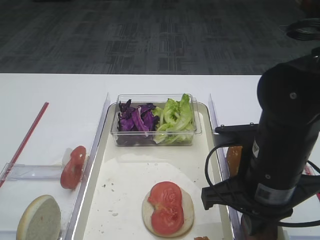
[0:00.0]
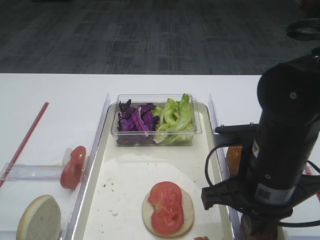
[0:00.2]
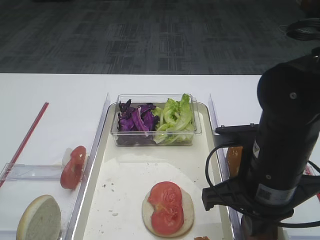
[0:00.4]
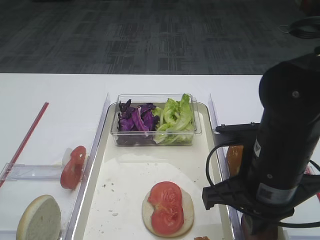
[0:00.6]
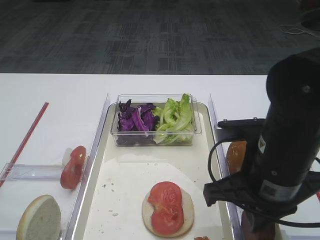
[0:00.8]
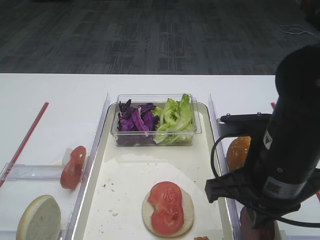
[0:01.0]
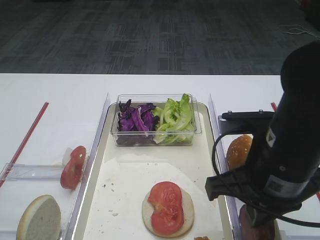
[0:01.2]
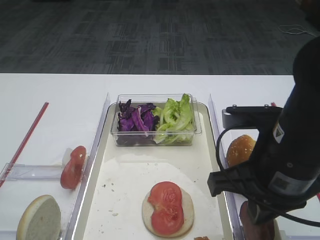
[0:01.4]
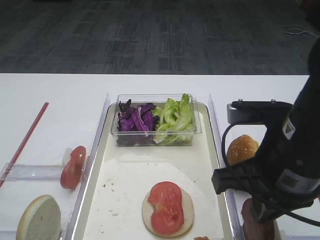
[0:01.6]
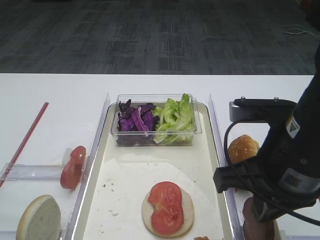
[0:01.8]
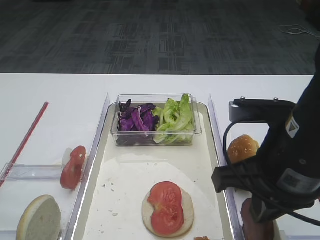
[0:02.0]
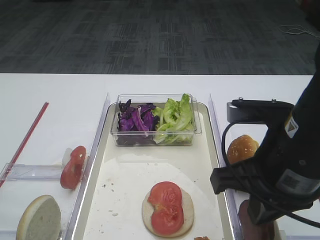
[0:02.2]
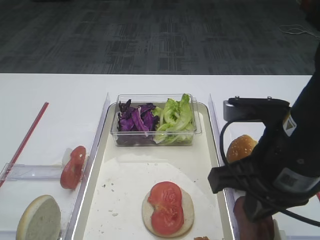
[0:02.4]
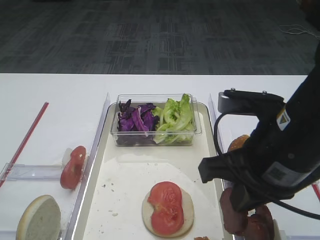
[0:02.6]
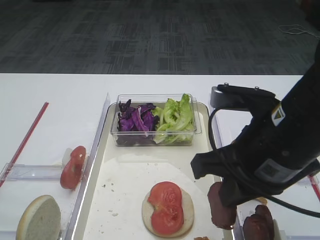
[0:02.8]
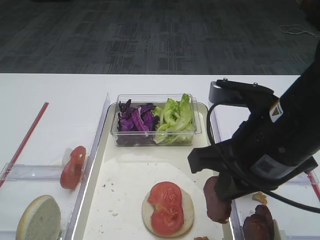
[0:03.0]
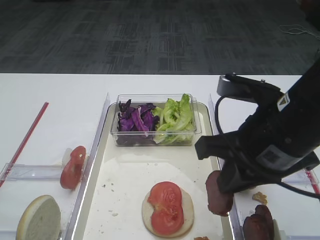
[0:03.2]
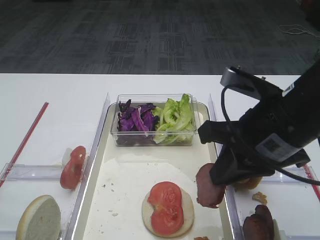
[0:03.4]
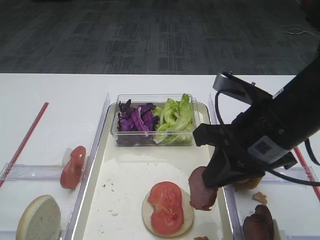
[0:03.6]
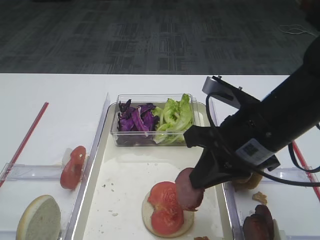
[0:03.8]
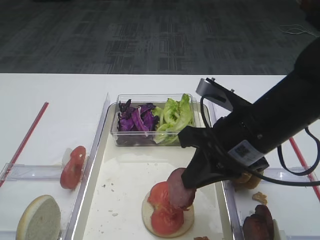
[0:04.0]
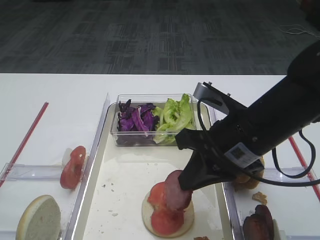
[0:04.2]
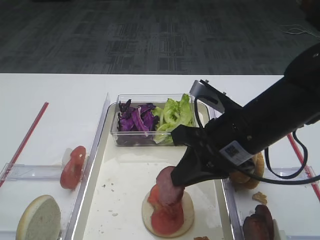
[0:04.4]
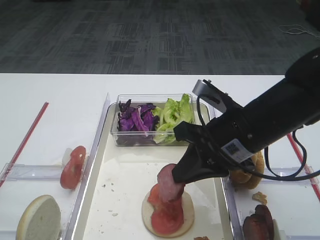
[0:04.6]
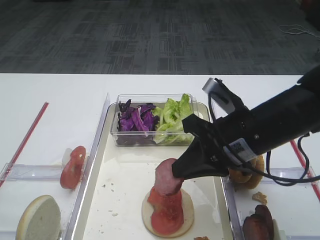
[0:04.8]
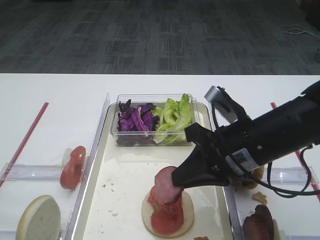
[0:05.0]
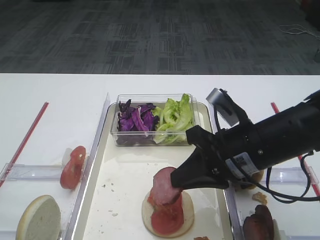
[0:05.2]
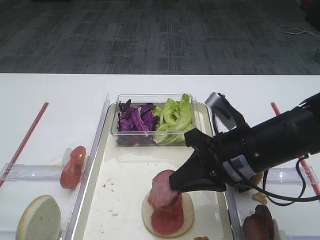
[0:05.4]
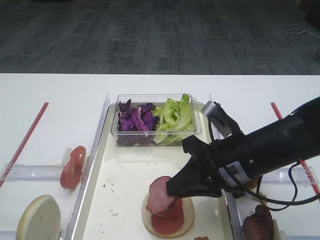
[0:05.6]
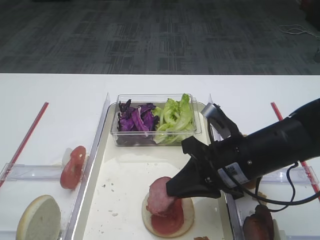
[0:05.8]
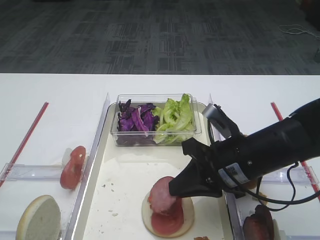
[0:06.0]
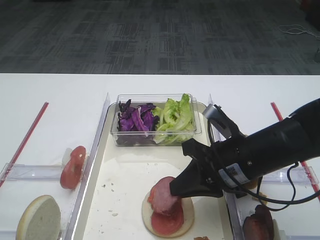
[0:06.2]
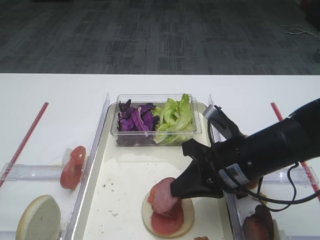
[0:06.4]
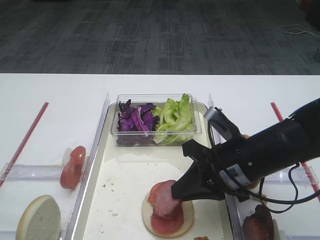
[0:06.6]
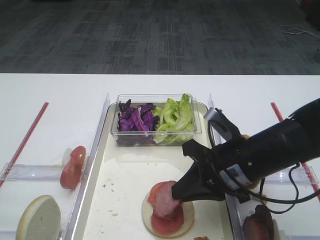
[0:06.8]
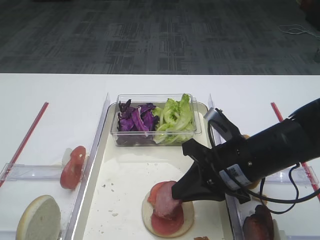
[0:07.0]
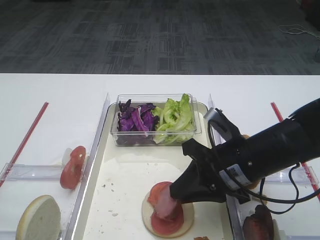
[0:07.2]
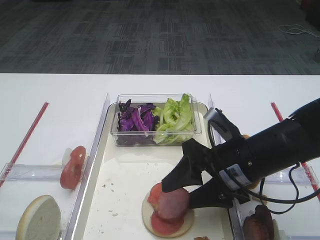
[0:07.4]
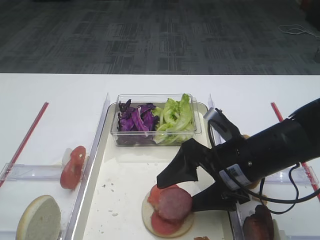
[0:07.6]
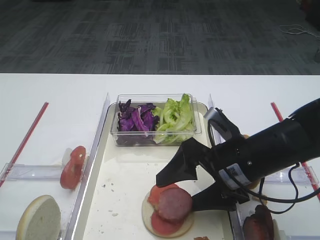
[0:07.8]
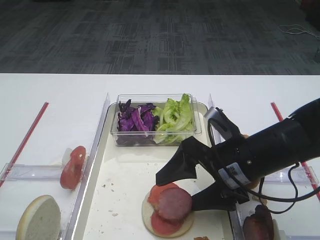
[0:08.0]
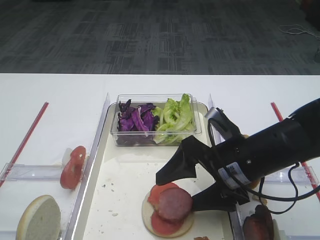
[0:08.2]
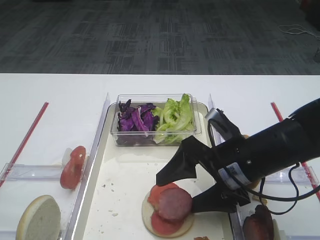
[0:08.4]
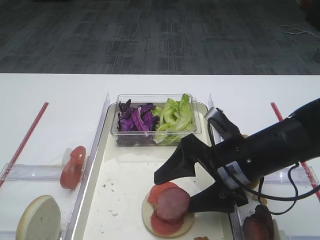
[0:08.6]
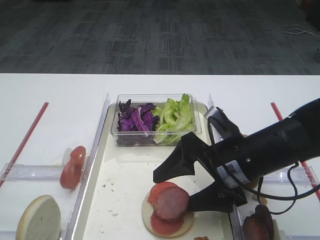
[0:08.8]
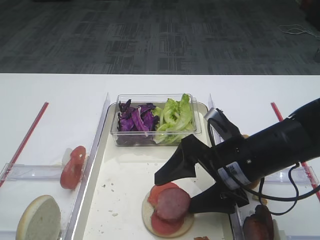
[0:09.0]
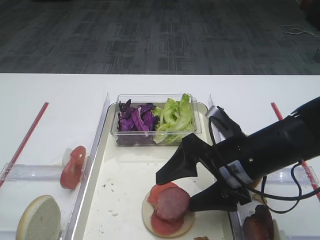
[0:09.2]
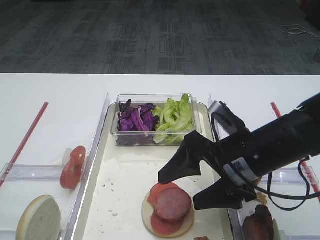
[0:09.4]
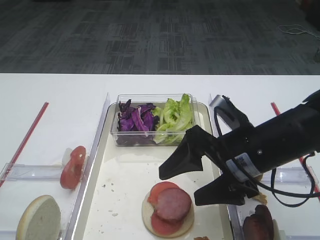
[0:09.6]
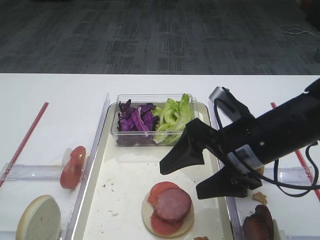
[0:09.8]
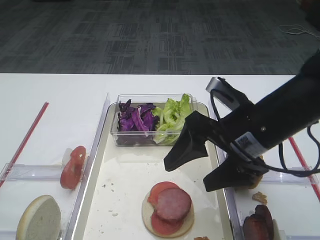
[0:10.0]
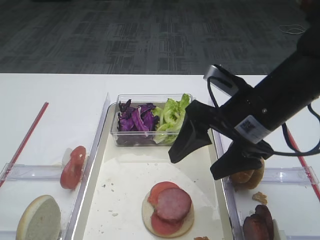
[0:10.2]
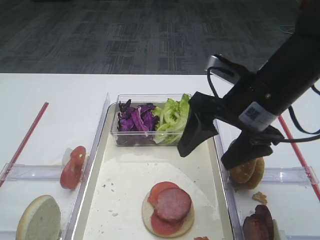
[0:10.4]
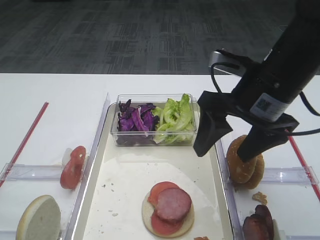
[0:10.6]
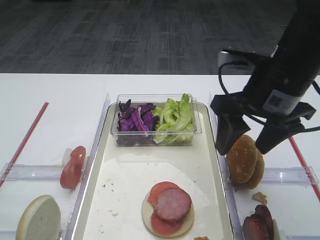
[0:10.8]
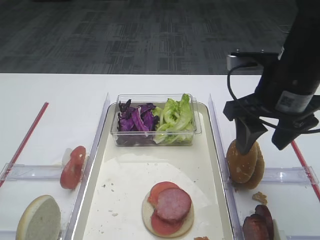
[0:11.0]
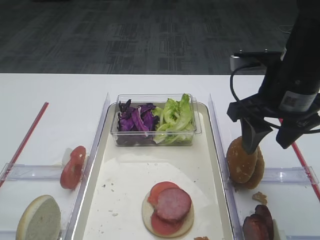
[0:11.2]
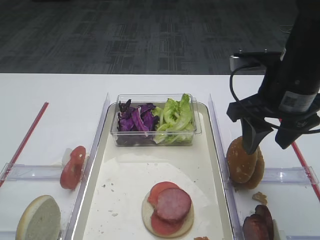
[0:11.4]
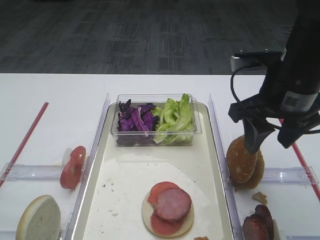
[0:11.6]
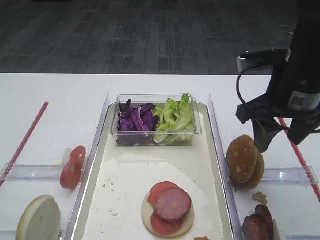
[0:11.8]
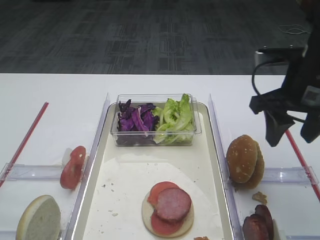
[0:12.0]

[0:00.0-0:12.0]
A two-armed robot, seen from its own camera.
Step, 0:00.0 to 0:02.0: Pick up the cutlet with the right gripper.
Step, 0:02.2 to 0:10.2: Place the cutlet on the tomato slice with the right gripper.
0:00.0 to 0:01.6: The right gripper changes place by about 5 cm.
0:01.6 to 0:03.0: There are only small adjustments of the grippers.
0:03.0 to 0:04.4: The right gripper is displaced forward by roughly 5 cm.
0:04.4 to 0:06.0: The right gripper heads downward, covering roughly 5 cm.
0:06.0 to 0:07.6: The right gripper opens its fingers.
0:07.6 to 0:09.0: The grippers stay close to where they were, moving slightly.
0:09.0 to 0:10.4: The right gripper heads upward, covering about 10 cm.
0:10.4 to 0:12.0: The right gripper shifts roughly 5 cm to the right.

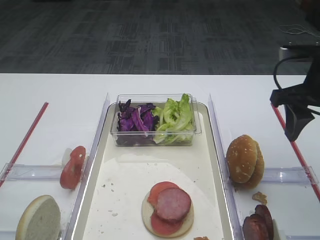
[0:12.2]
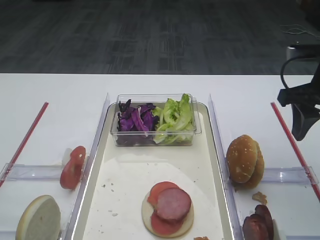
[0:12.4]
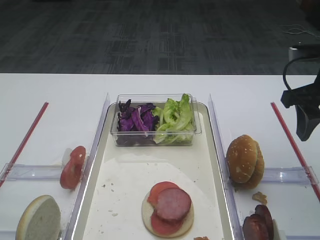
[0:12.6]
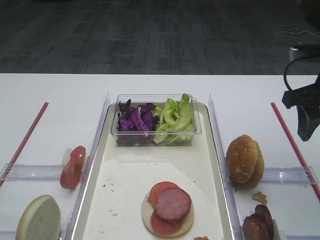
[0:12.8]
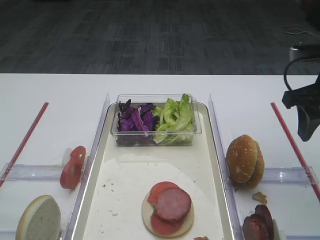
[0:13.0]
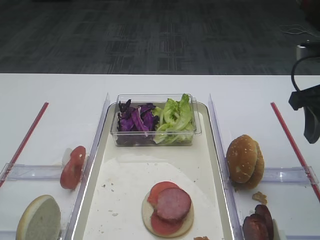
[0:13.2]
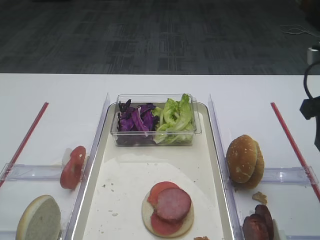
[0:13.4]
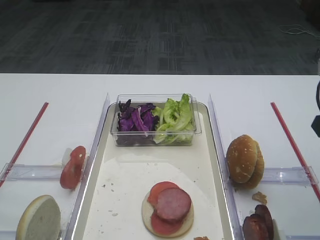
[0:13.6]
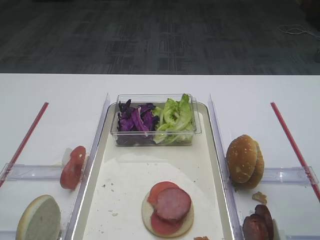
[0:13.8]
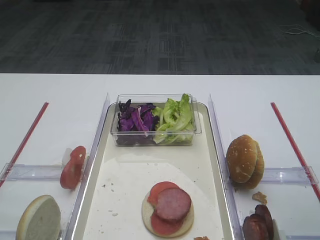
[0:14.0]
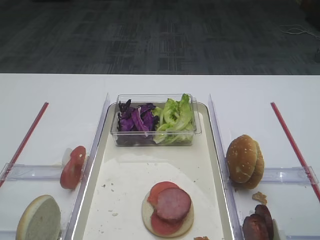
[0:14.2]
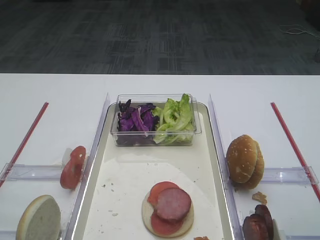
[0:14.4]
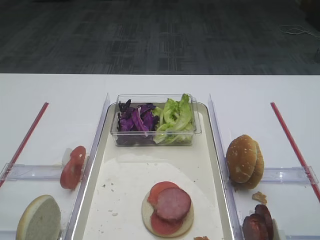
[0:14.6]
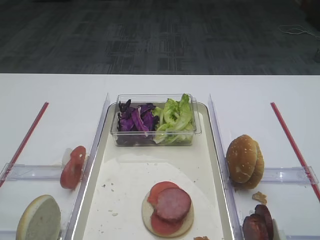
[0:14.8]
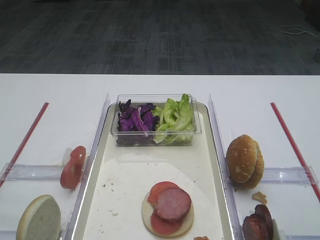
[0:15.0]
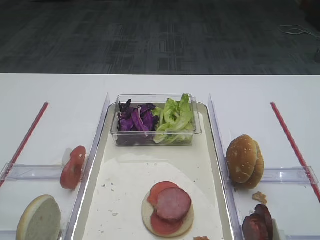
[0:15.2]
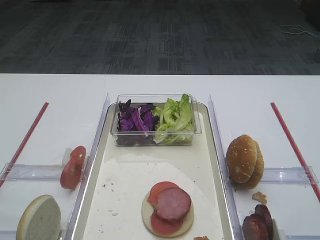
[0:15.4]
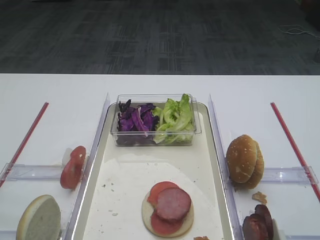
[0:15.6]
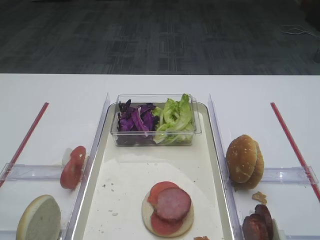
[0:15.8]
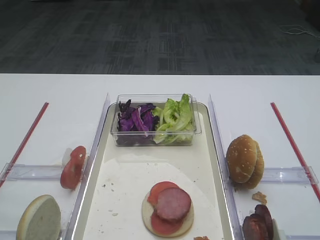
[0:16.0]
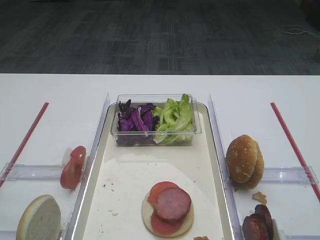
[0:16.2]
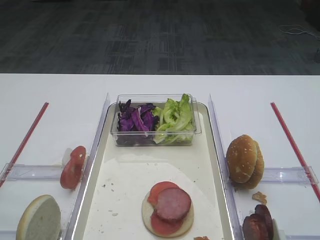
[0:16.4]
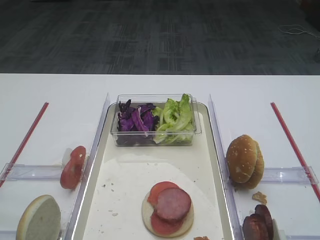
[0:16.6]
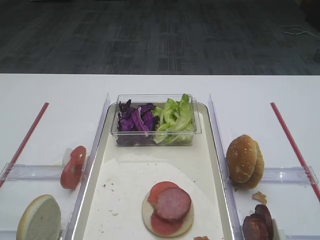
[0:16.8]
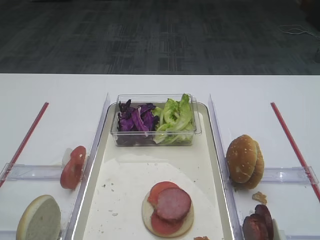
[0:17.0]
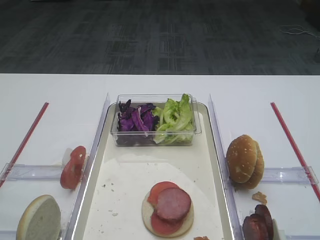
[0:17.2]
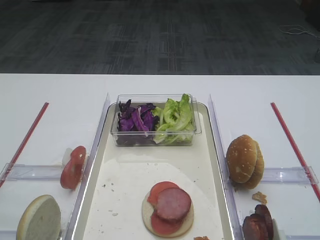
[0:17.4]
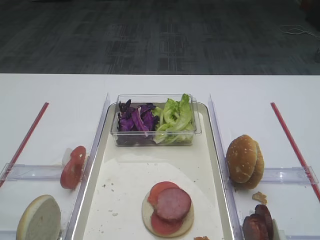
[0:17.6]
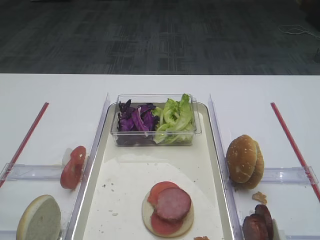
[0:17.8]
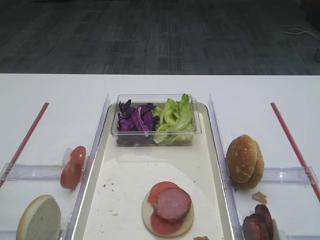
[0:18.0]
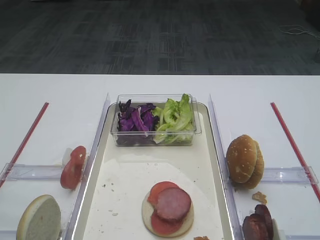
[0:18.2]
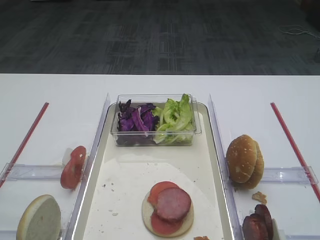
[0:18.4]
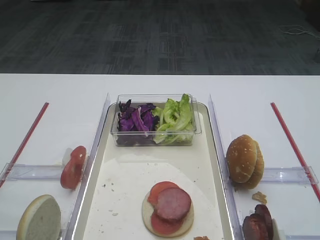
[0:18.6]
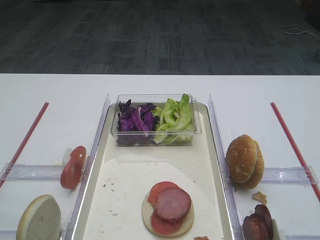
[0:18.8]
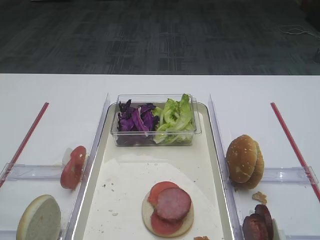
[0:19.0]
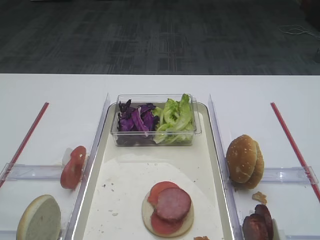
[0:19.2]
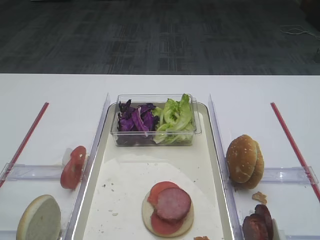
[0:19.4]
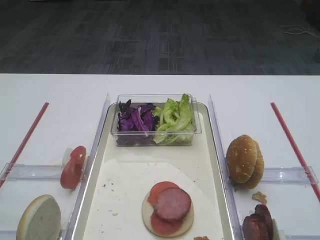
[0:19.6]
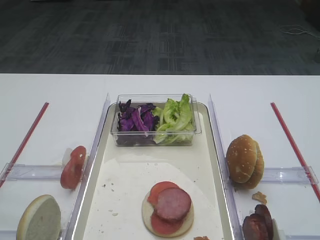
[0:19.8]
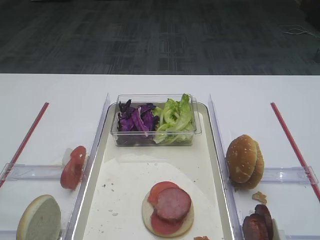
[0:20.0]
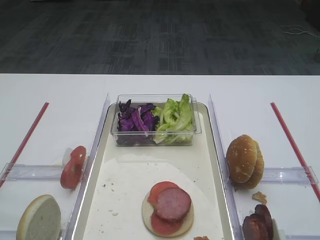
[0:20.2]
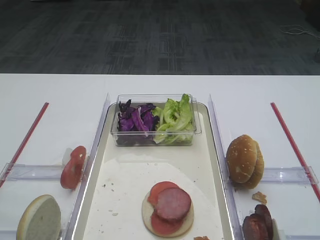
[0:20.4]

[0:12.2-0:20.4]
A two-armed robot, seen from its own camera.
0:12.2 to 0:13.8: The right gripper travels backward by some 10 cm.
0:17.2 to 0:20.4: Both grippers stay about where they are.

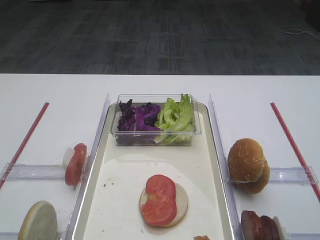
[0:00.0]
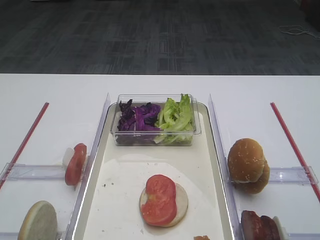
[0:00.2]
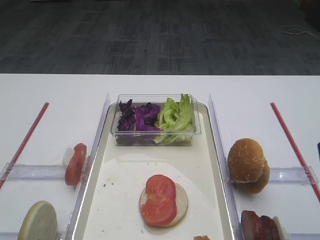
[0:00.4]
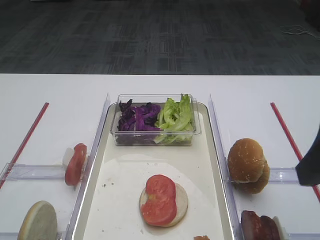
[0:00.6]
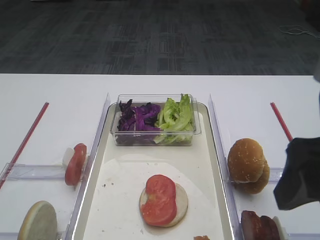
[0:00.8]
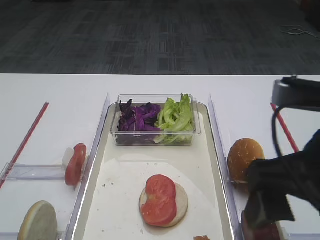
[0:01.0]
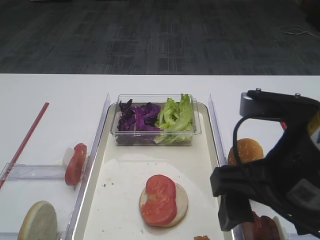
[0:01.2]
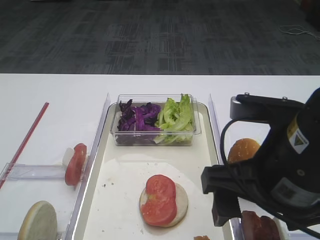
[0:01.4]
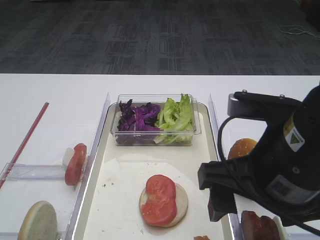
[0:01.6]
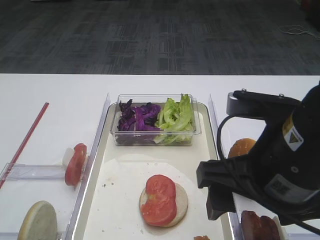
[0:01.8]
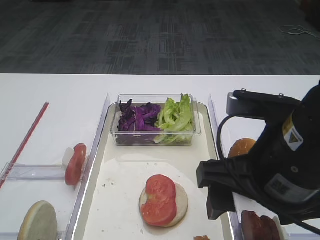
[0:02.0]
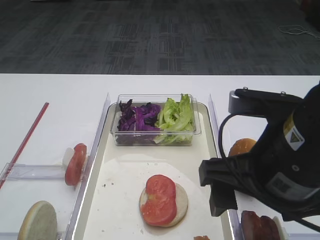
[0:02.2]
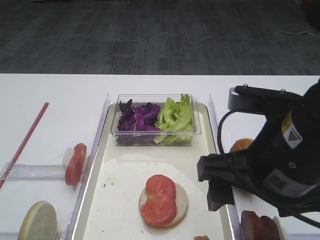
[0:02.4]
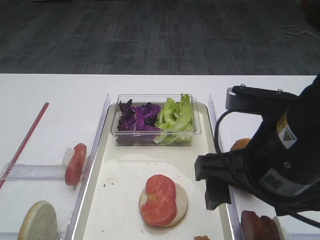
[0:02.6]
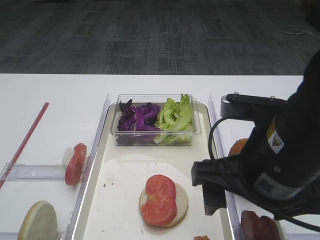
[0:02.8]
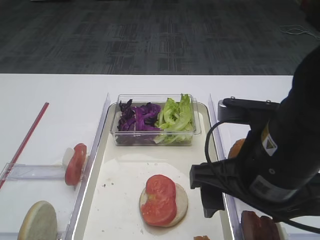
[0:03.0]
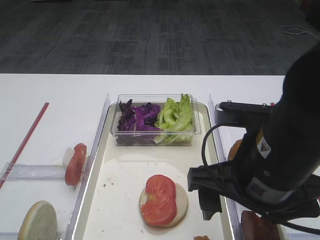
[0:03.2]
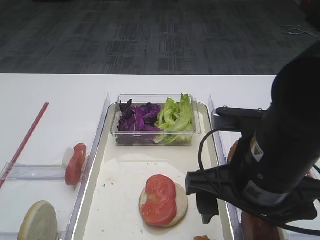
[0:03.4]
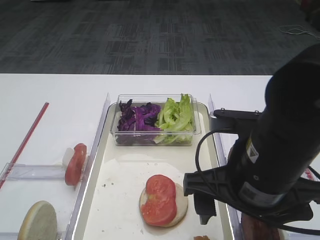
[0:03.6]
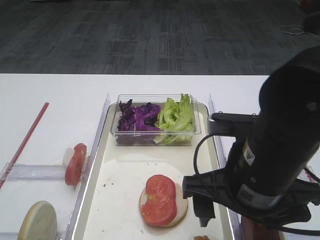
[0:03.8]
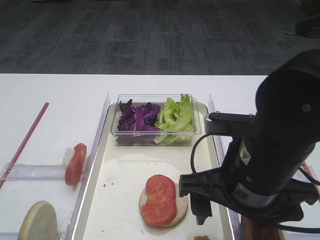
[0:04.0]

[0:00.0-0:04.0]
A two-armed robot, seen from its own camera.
0:00.0 to 0:01.4: The right gripper goes approximately 15 cm to the left and downward.
0:01.4 to 0:02.6: Both grippers stay about where they are.
0:02.6 to 0:04.0: The grippers stay close to where they were, moving slightly.
